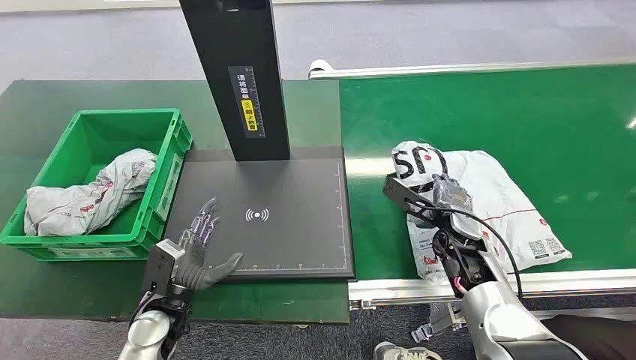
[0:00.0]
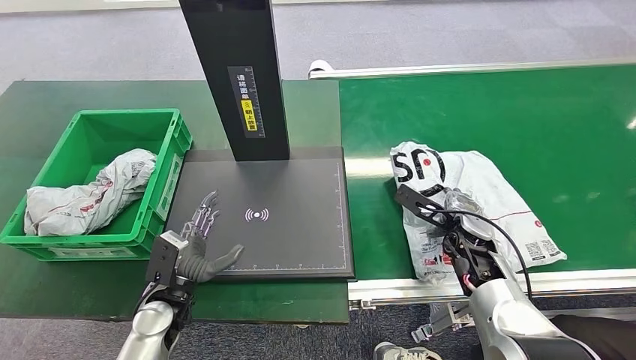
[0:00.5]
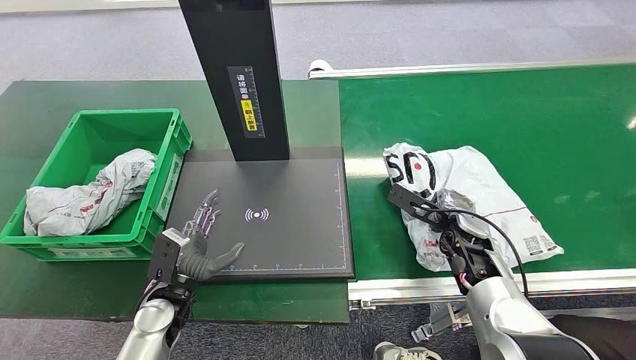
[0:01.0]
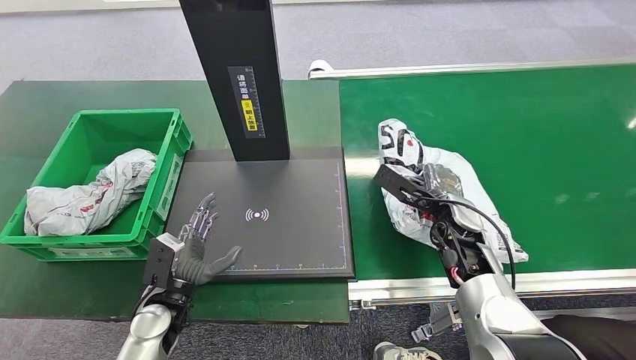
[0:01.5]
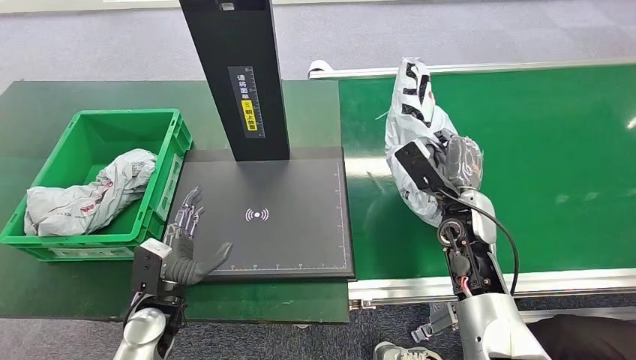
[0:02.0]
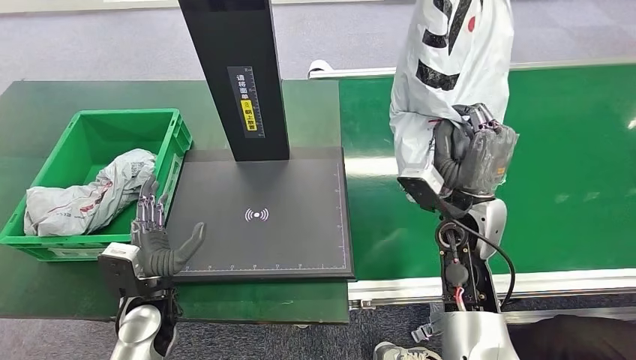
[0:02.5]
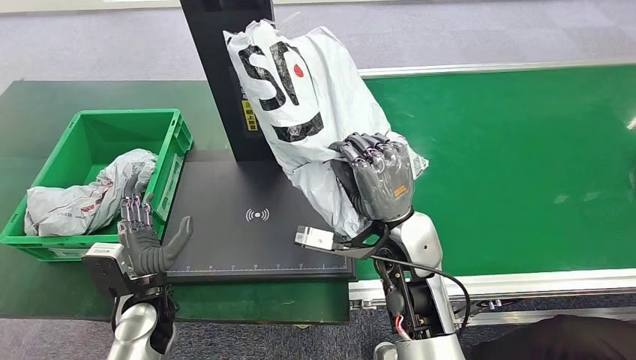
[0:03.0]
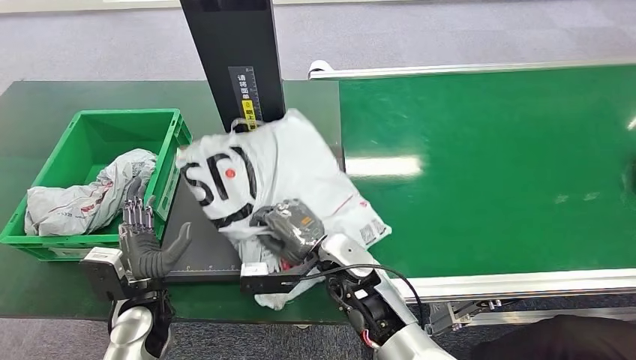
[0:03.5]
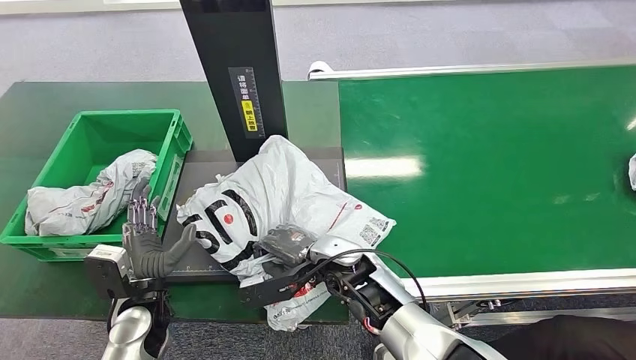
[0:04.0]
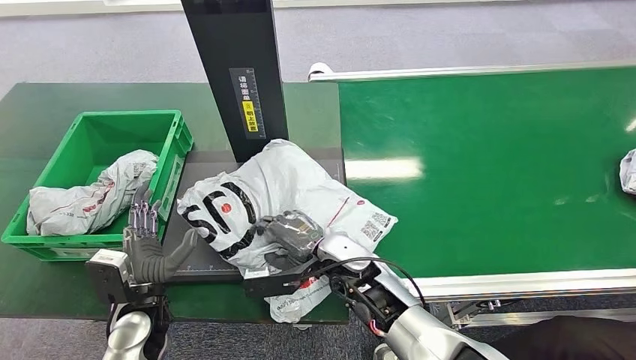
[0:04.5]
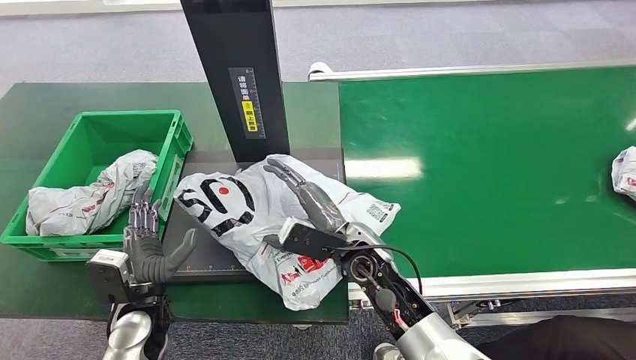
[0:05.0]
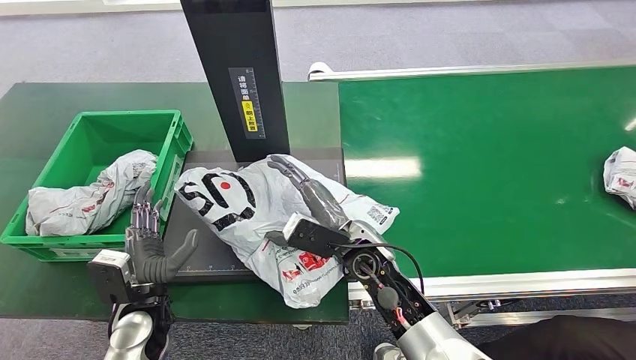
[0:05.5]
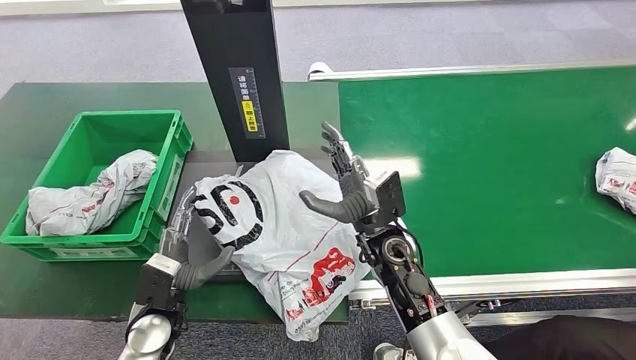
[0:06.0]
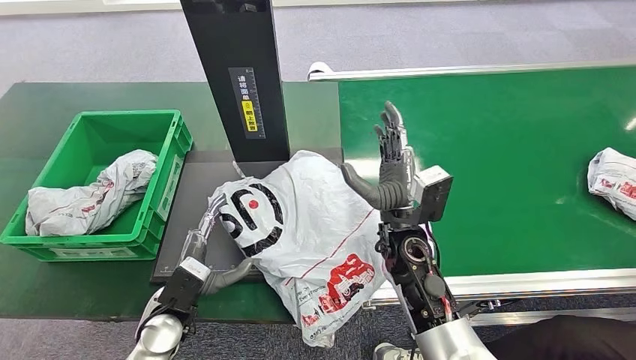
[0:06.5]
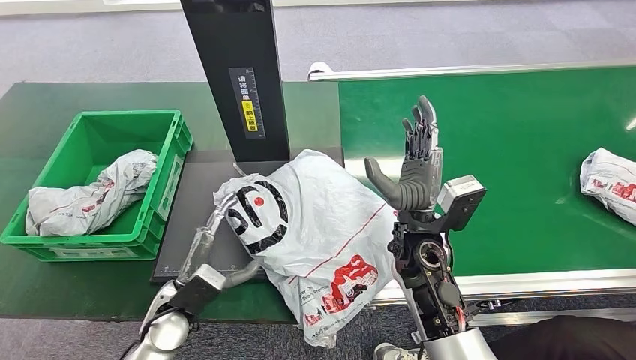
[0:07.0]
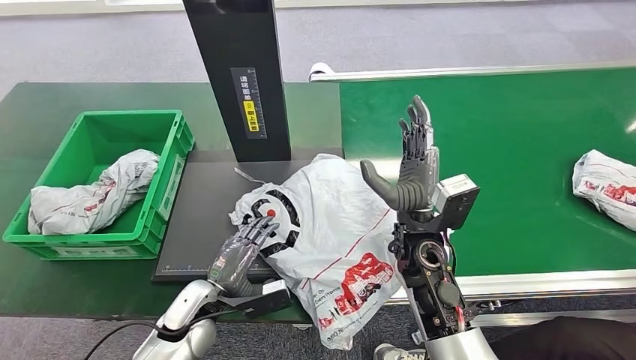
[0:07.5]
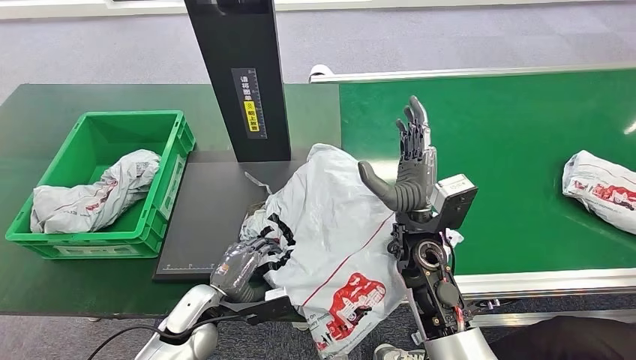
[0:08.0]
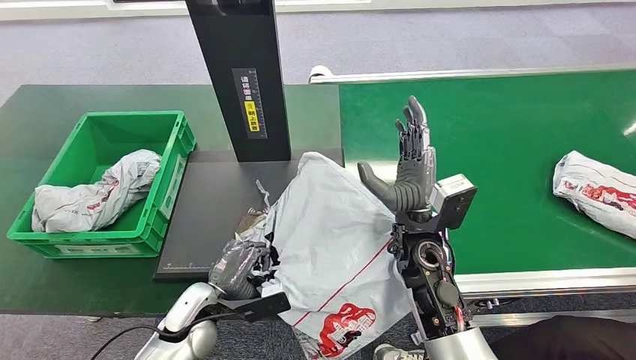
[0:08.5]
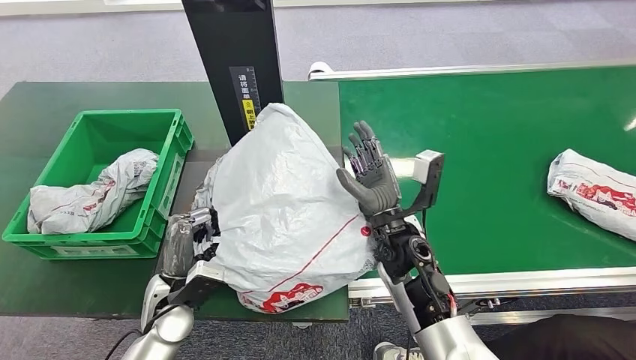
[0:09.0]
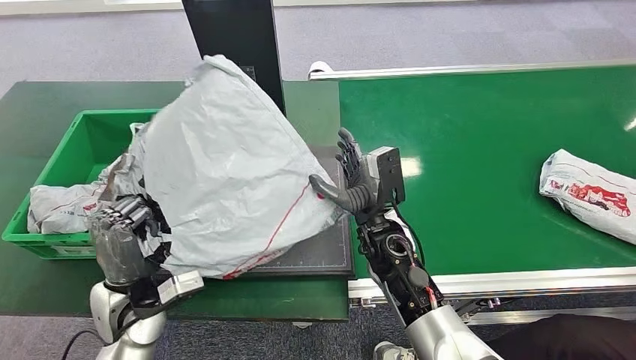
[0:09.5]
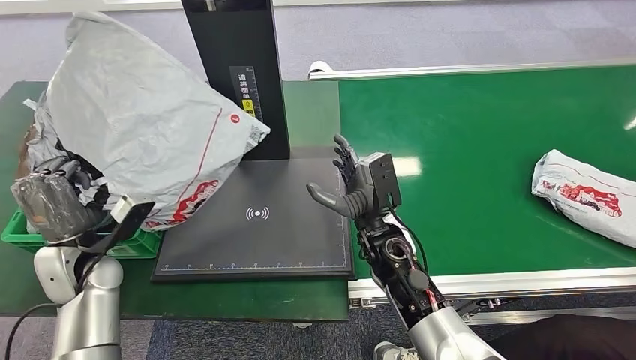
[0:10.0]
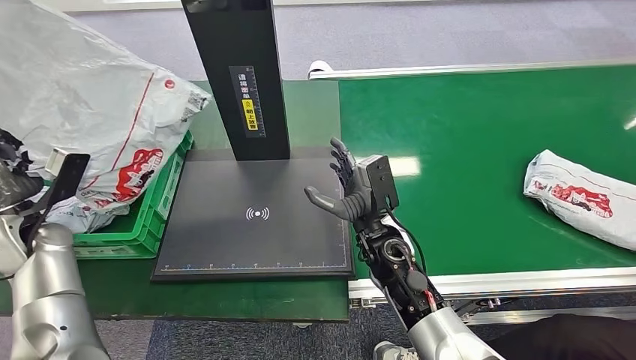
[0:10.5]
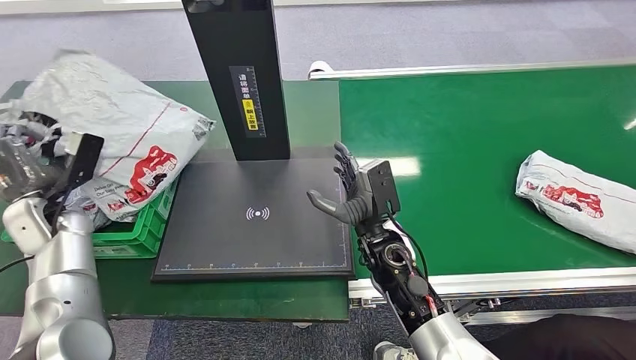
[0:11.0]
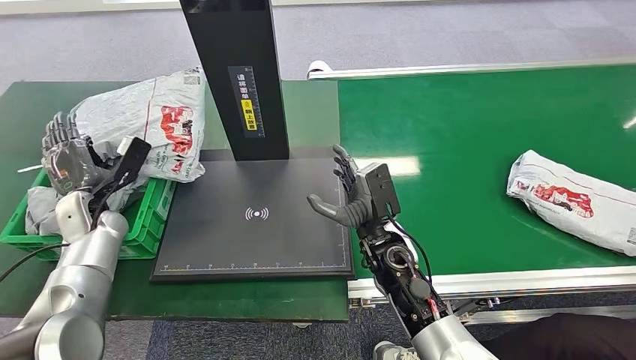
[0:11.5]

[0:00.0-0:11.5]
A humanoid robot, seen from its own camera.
Step, 0:00.0 to 0:03.0: Pick up the package from the conveyor belt.
Step, 0:03.5 to 0:06.5: Place the package onto the inbound machine.
Step, 0:07.0 to 0:10.0: Pick up the package from the inbound machine.
Step, 0:10.5 to 0:11.5: Place the package into the parcel locker.
0:04.0 to 0:06.0: The right hand goes approximately 5 cm to the right.

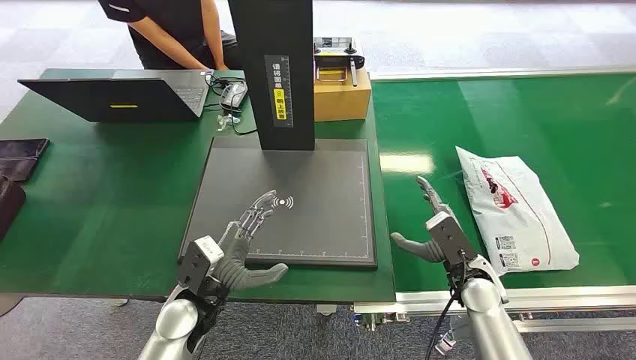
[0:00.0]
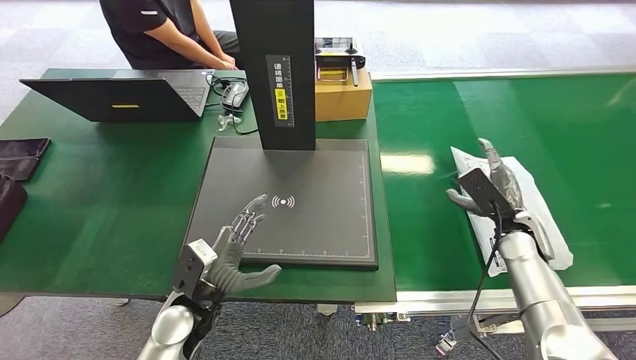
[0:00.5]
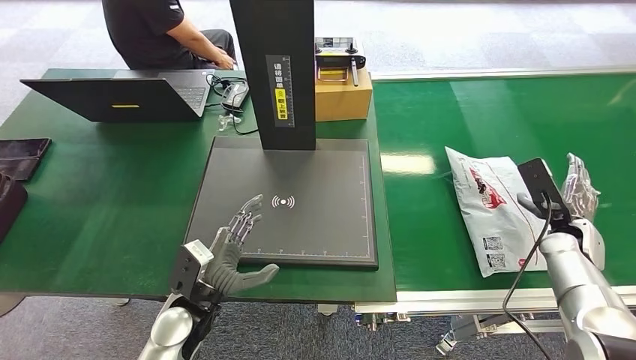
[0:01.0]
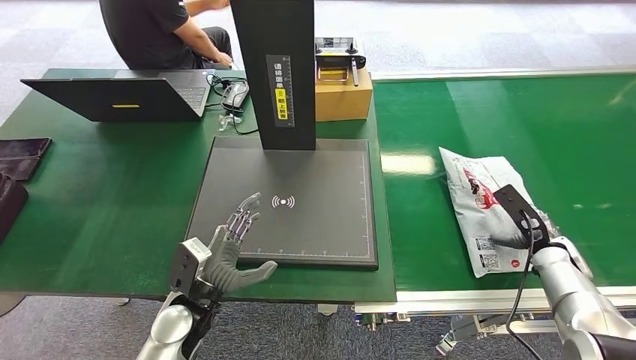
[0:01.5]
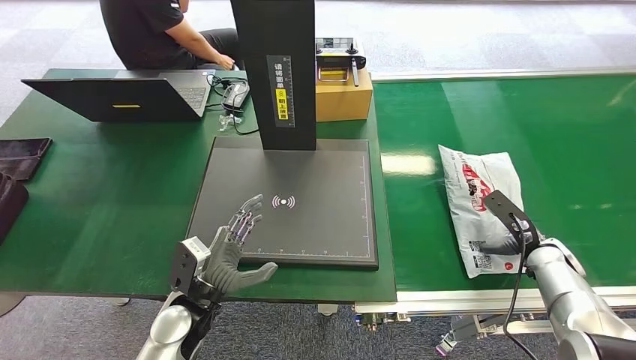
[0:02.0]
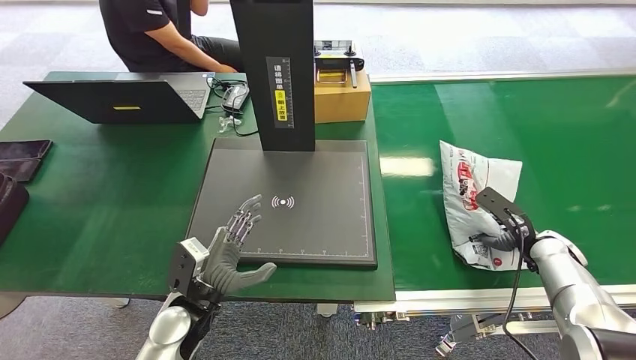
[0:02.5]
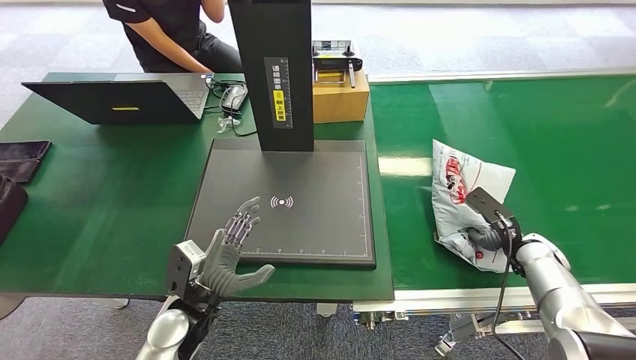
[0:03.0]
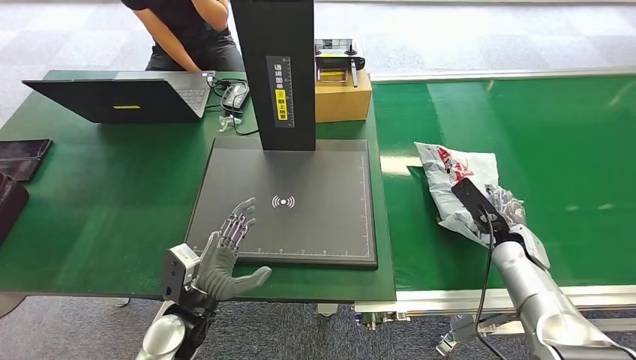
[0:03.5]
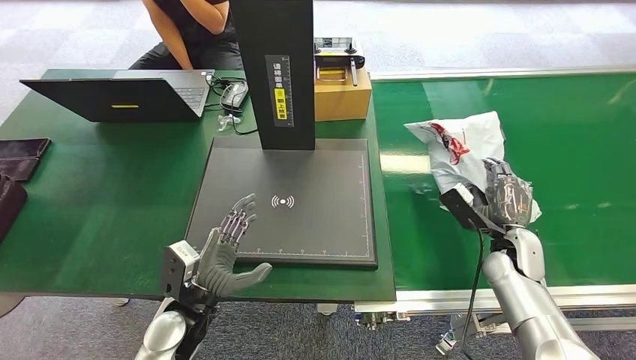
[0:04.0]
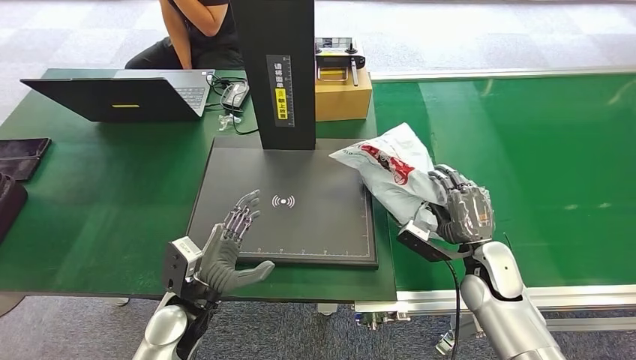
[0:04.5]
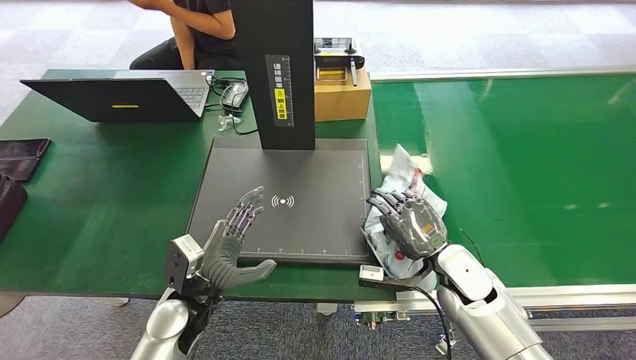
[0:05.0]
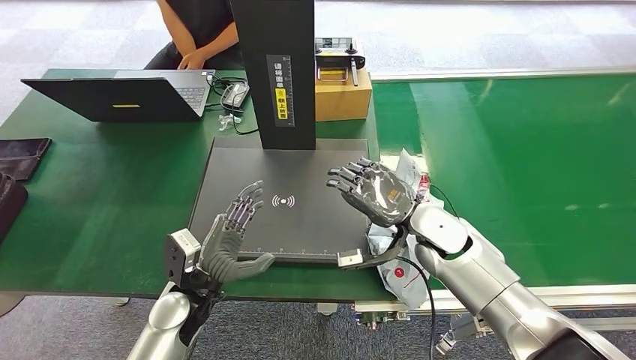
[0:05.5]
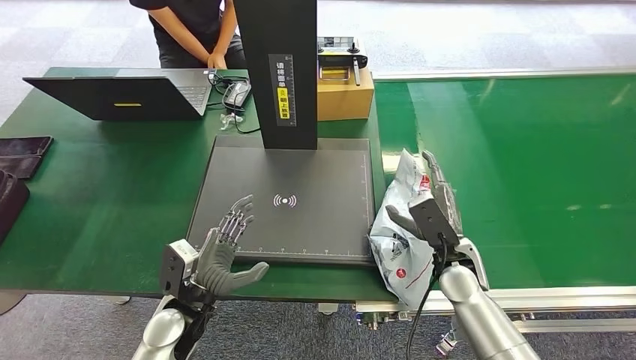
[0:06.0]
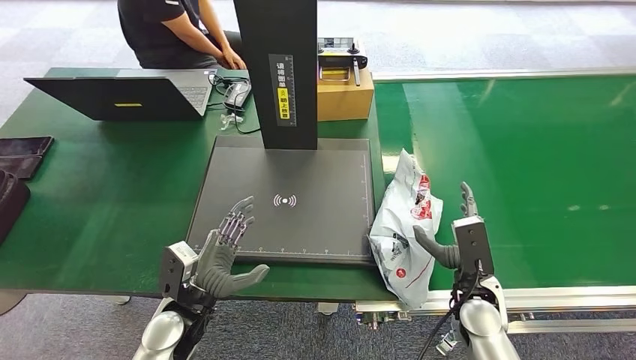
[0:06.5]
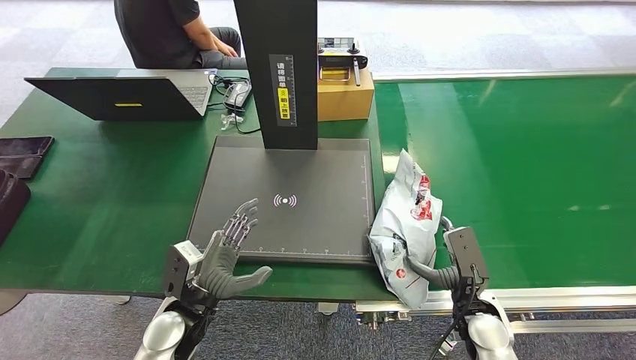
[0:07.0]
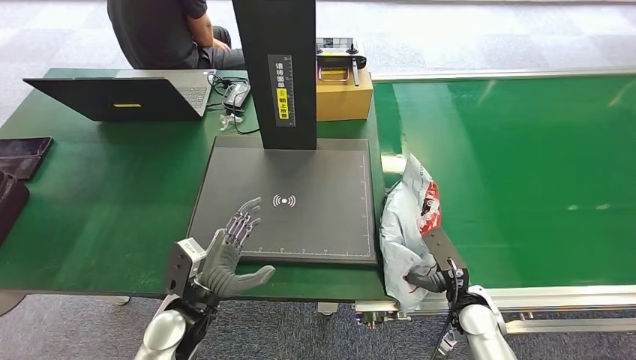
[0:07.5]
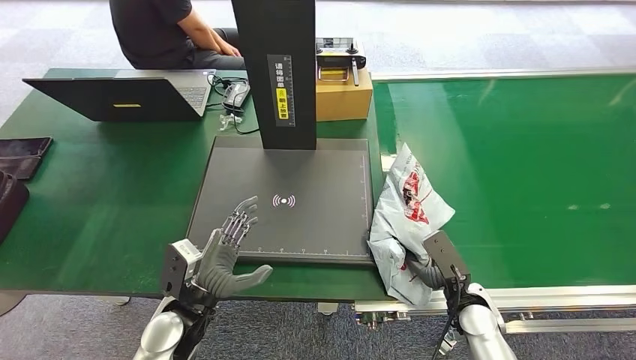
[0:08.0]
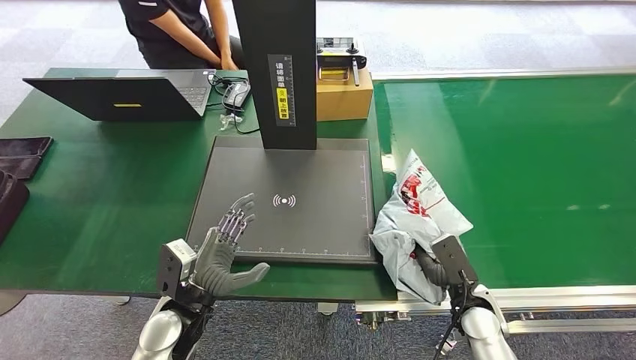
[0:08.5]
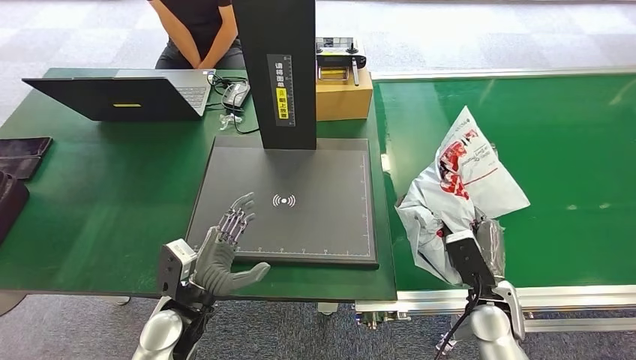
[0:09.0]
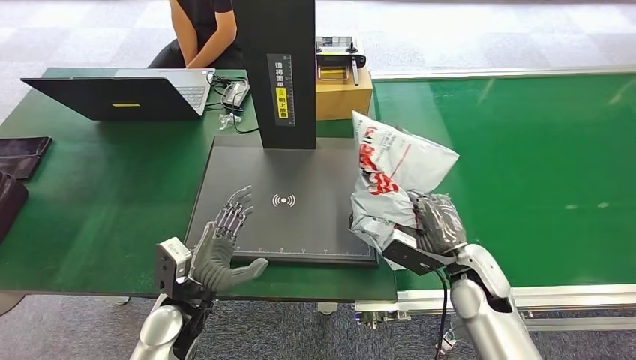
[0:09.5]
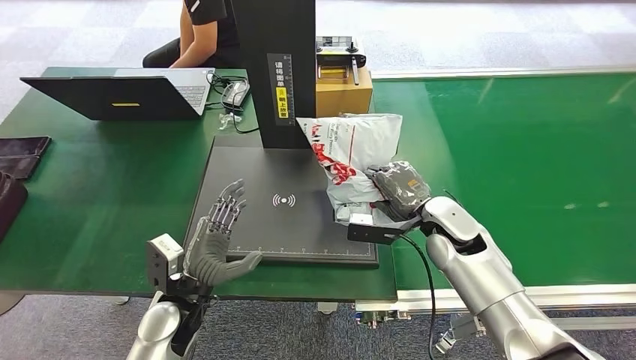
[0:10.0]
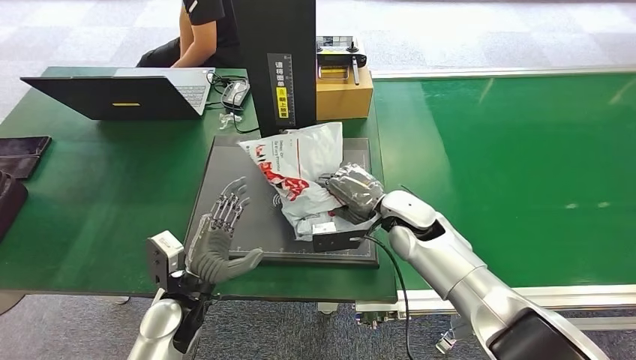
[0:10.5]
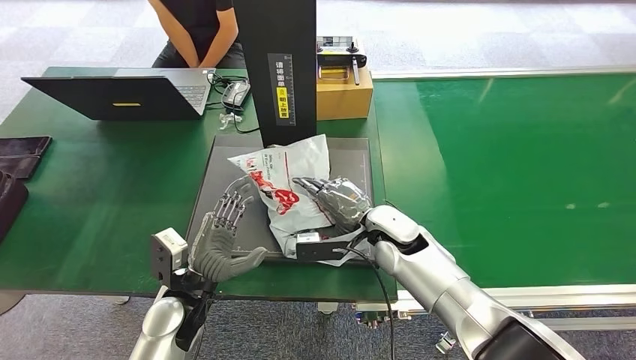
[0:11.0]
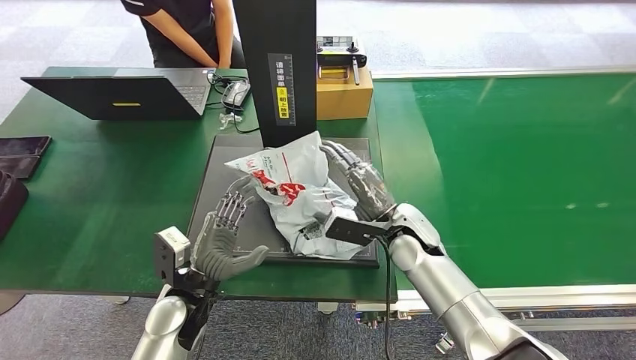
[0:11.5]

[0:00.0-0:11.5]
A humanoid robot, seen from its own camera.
Step, 0:00.0 to 0:04.0: Pick up the package from the conveyor belt.
0:02.0 to 0:04.0: The right hand is displaced to the left by roughly 10 cm.
0:06.0 to 0:07.5: The right hand shifts approximately 10 cm downward and backward.
0:07.5 to 0:09.5: The right hand heads upward, covering some 10 cm.
